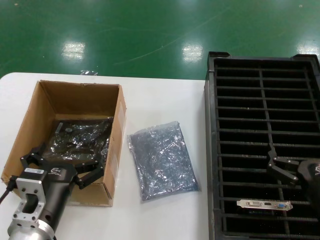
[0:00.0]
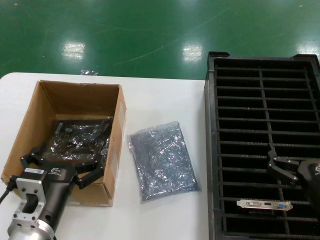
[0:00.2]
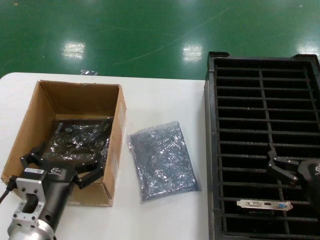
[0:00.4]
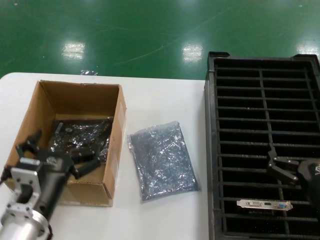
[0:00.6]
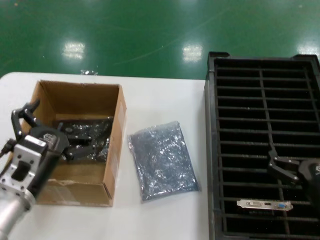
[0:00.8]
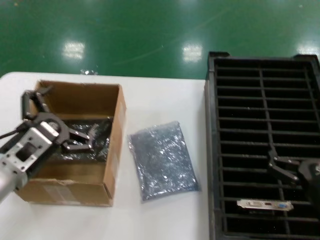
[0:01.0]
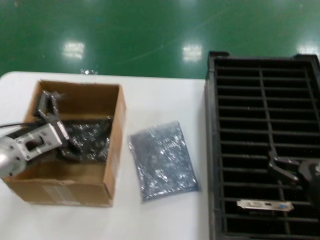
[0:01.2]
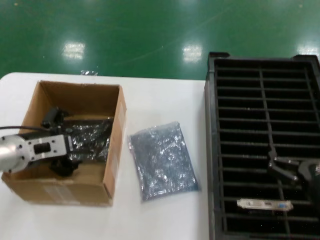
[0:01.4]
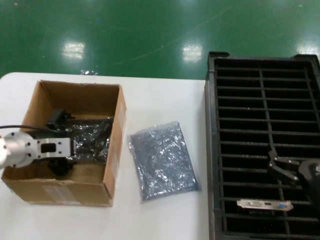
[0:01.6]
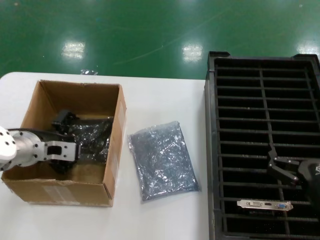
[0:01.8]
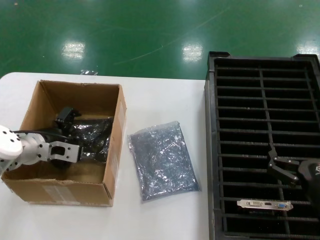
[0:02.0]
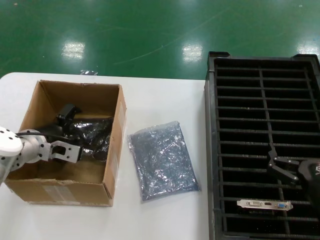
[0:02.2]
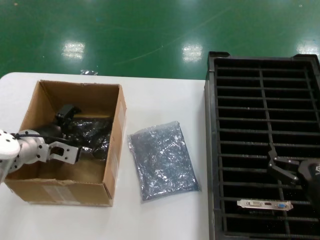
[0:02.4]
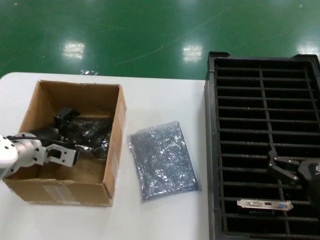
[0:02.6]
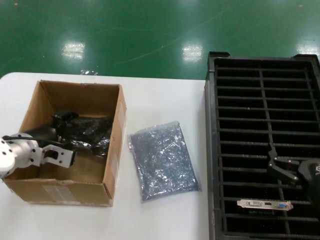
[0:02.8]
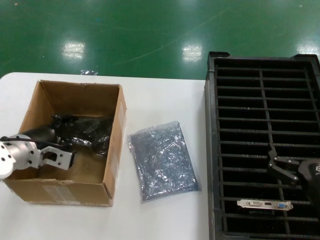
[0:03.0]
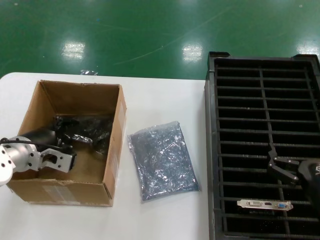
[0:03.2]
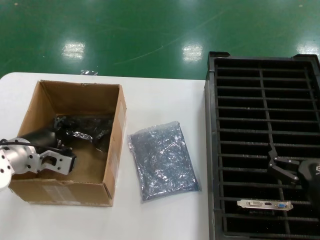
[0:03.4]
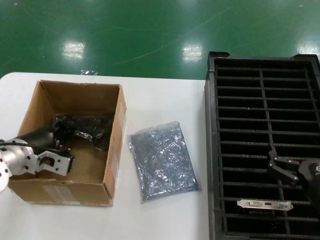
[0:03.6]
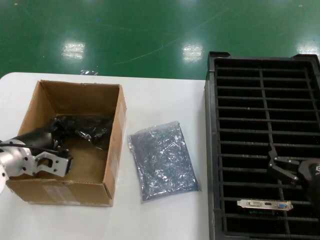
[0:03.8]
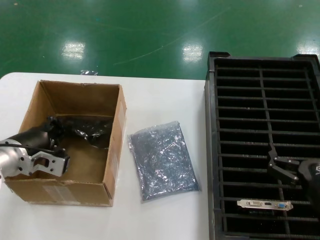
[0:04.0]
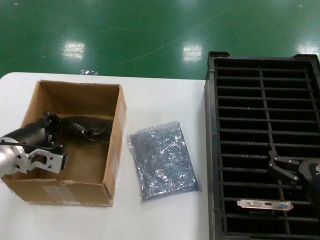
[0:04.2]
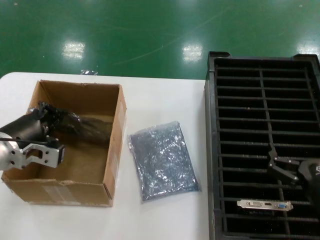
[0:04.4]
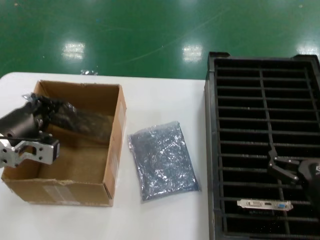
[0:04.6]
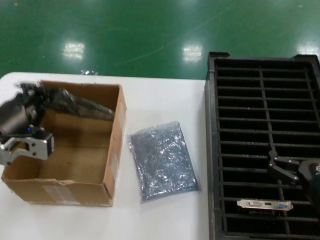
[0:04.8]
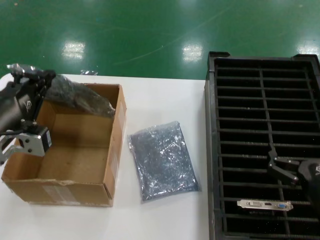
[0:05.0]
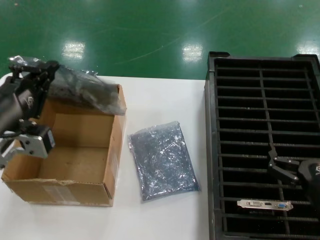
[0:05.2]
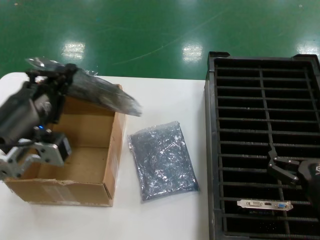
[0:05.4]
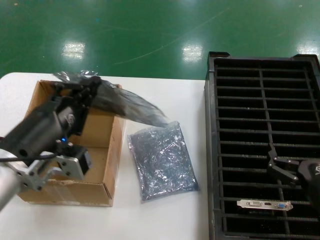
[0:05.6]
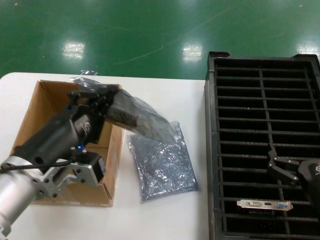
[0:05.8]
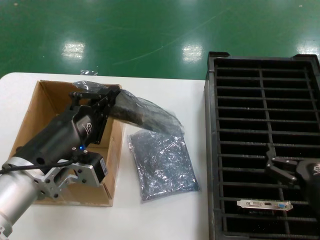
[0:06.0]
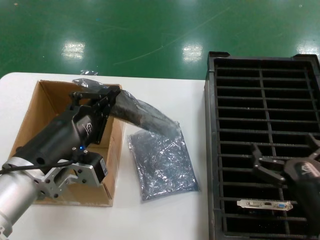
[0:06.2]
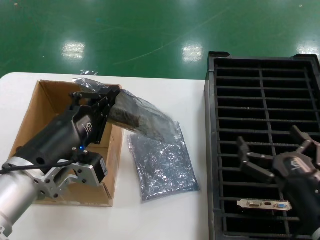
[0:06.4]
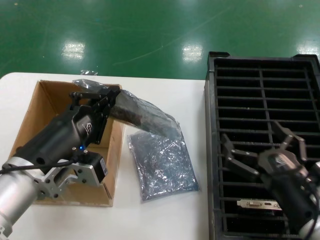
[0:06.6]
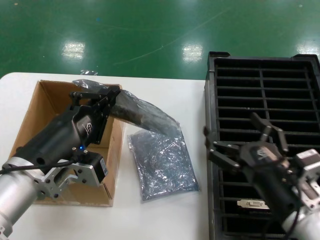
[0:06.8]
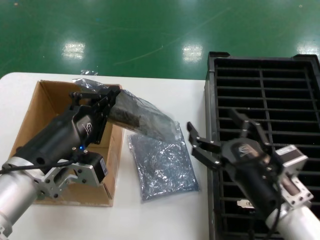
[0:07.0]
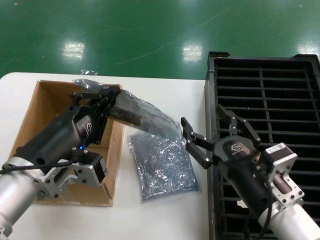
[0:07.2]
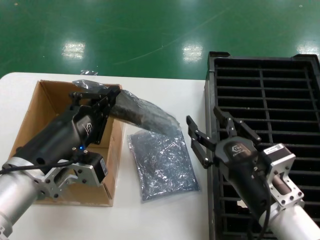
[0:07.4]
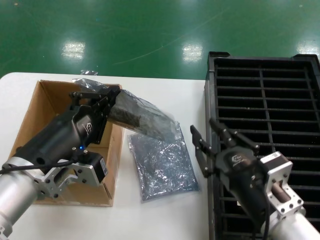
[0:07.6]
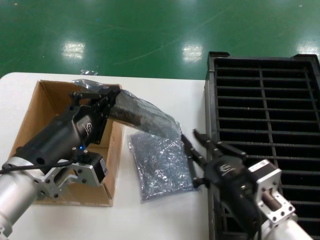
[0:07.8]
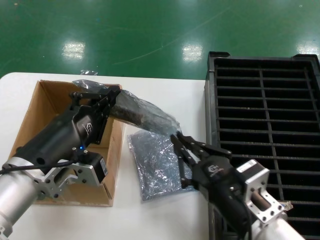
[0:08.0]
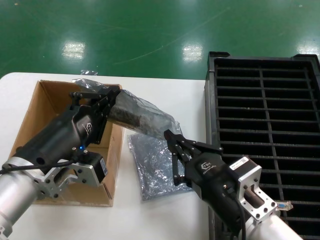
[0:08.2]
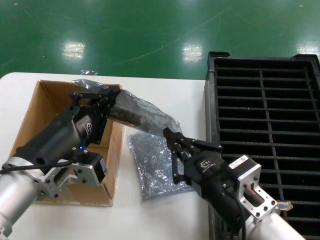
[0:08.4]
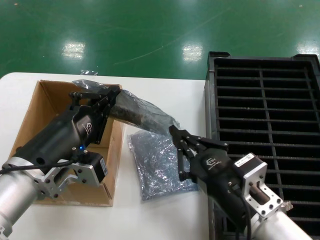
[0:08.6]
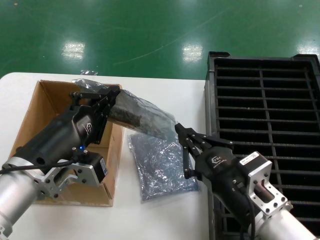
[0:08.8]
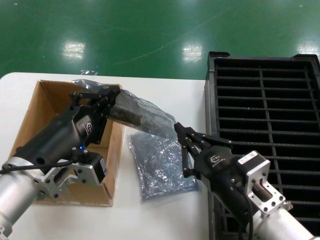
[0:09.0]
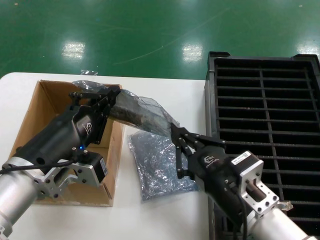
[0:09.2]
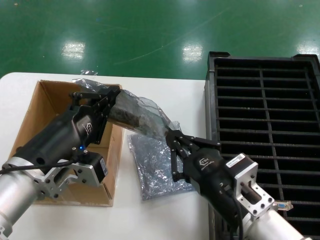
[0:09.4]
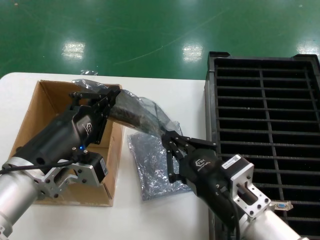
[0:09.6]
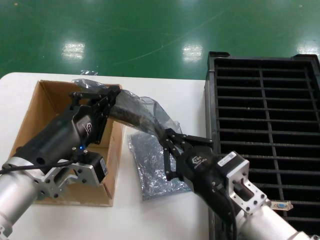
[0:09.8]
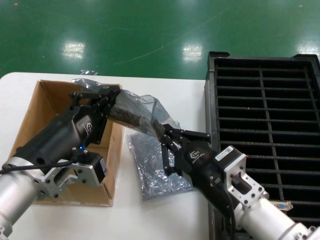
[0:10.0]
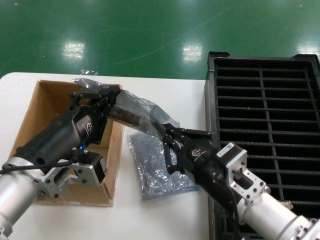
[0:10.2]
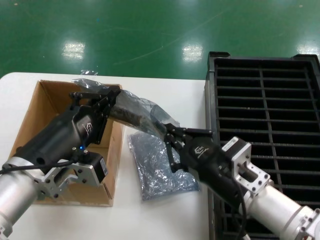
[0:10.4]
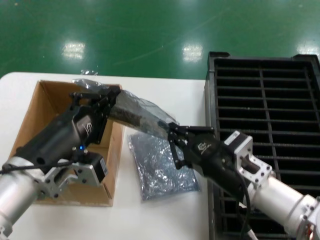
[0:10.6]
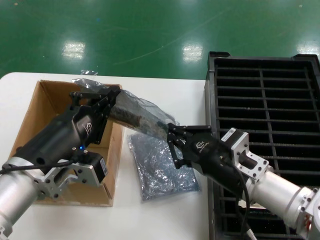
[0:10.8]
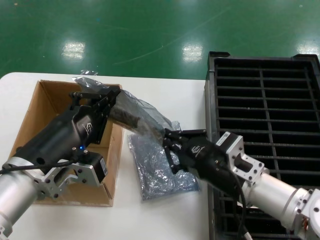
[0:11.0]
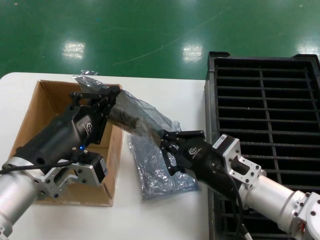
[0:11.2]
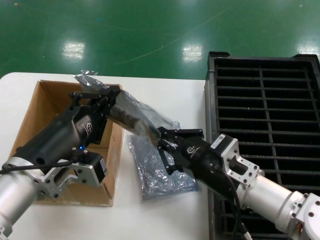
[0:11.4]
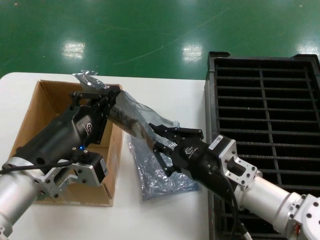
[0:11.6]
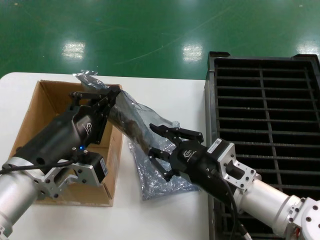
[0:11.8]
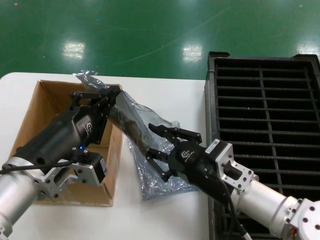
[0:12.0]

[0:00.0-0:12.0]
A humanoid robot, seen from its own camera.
Task of the whole recording: take out graphics card from box remove packaging put into black container.
Step, 0:00.0 to 0:03.8: Grasp the bag.
Step, 0:04.0 to 0:05.8: Lift the bag.
0:00.0 to 0:01.6: The left hand moves forward, to the left and upward, approximately 20 cm.
0:03.0 to 0:04.4: The left hand is displaced backward by approximately 5 cm.
0:04.4 to 0:06.0: The left hand goes about 15 cm backward and to the right.
0:06.0 to 0:07.6: The right hand is displaced to the left by about 10 cm.
0:07.6 to 0:10.4: The hands stay close to where they were, moving slightly.
0:10.4 to 0:12.0: The hands move only a little.

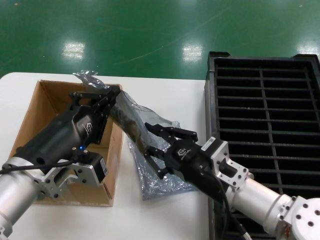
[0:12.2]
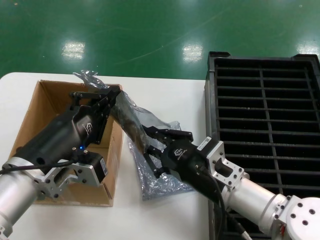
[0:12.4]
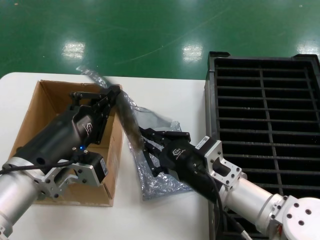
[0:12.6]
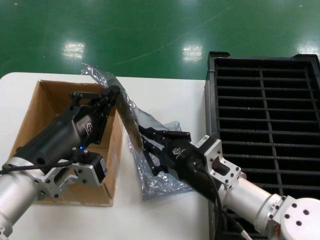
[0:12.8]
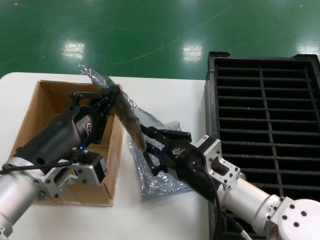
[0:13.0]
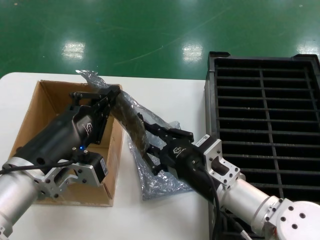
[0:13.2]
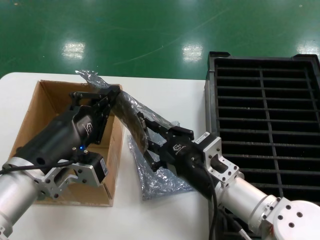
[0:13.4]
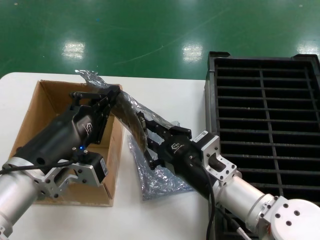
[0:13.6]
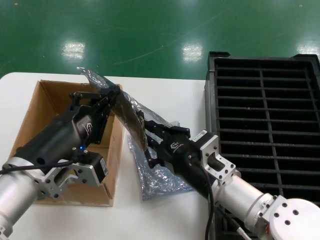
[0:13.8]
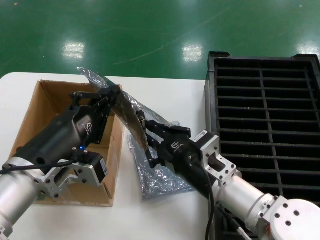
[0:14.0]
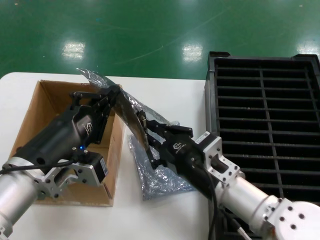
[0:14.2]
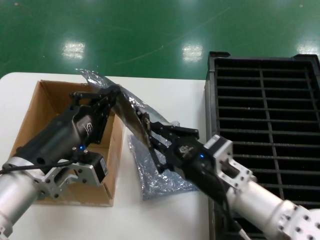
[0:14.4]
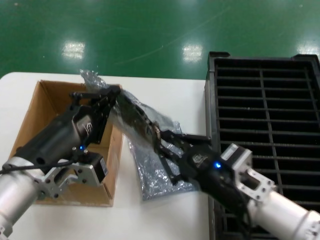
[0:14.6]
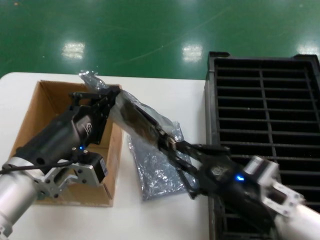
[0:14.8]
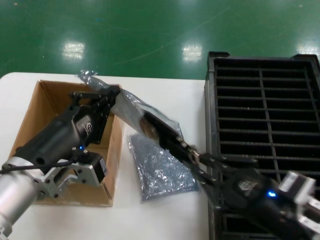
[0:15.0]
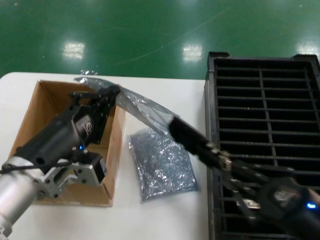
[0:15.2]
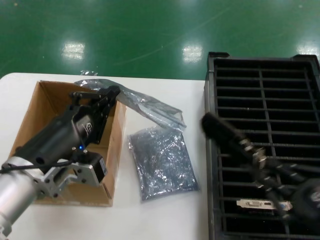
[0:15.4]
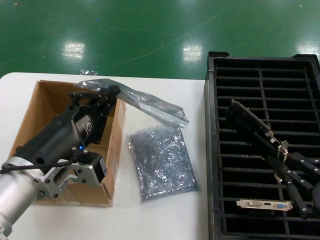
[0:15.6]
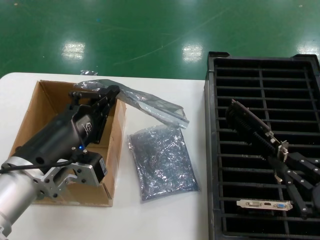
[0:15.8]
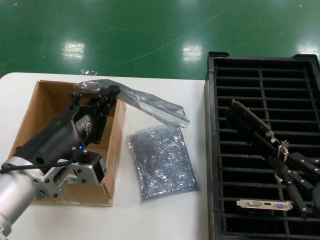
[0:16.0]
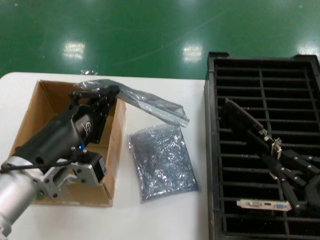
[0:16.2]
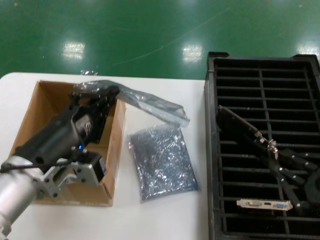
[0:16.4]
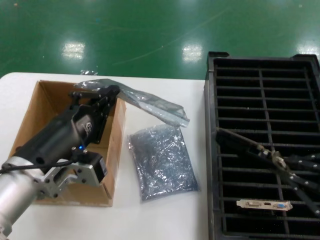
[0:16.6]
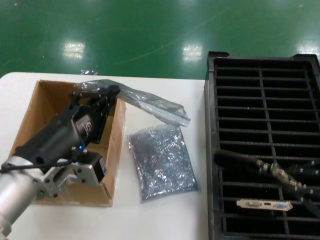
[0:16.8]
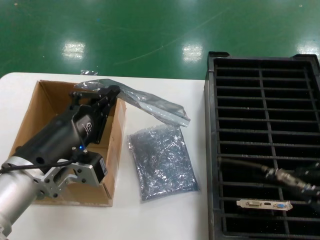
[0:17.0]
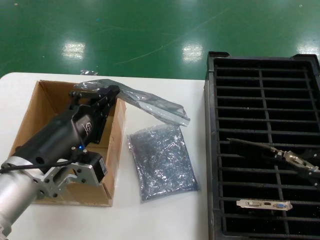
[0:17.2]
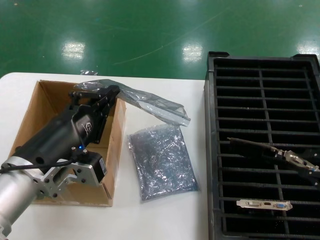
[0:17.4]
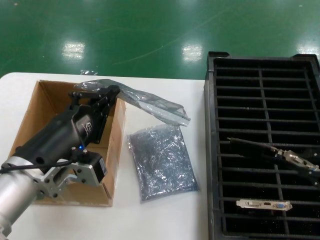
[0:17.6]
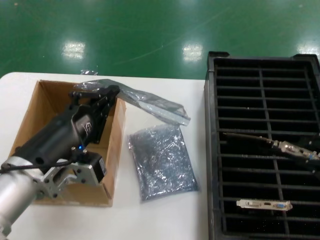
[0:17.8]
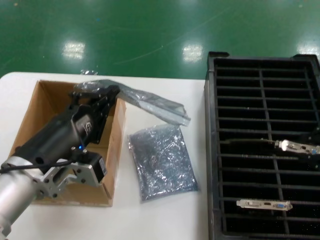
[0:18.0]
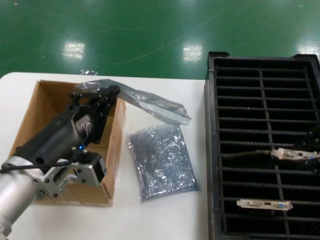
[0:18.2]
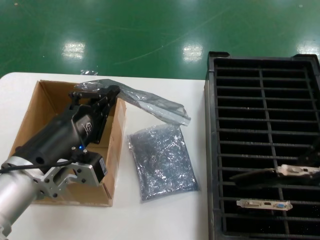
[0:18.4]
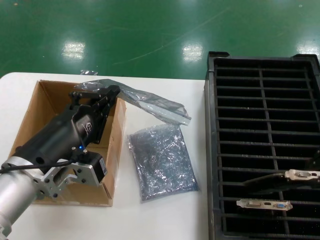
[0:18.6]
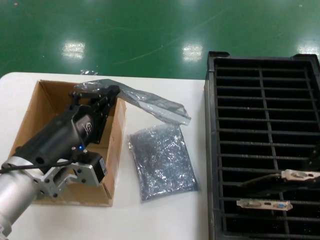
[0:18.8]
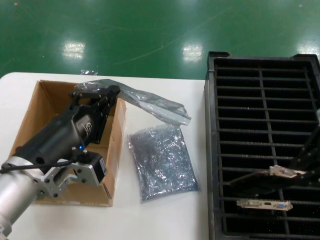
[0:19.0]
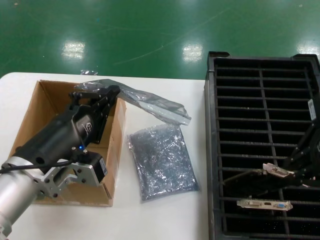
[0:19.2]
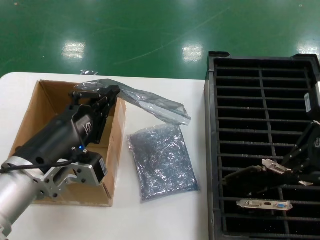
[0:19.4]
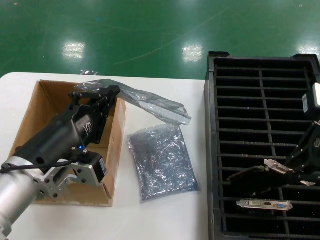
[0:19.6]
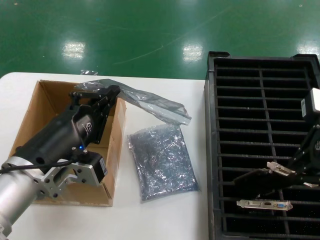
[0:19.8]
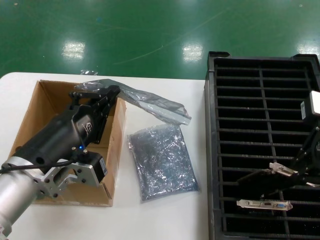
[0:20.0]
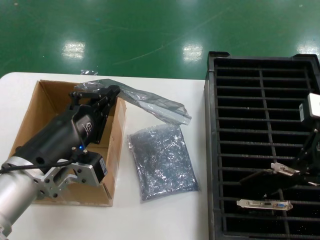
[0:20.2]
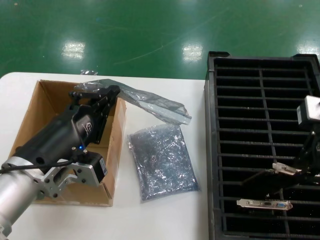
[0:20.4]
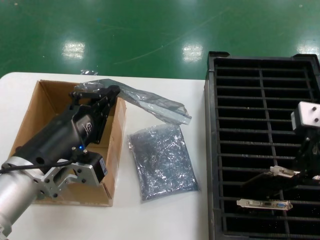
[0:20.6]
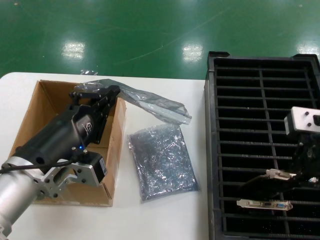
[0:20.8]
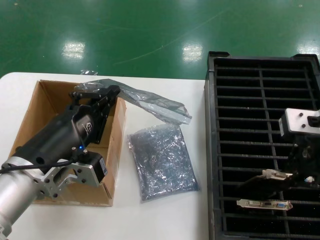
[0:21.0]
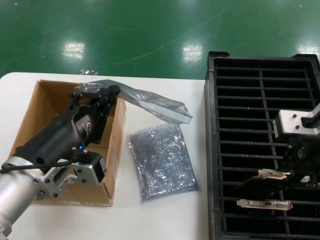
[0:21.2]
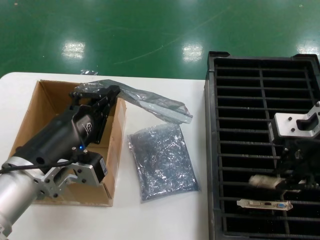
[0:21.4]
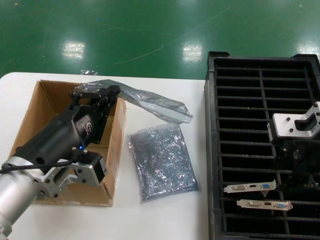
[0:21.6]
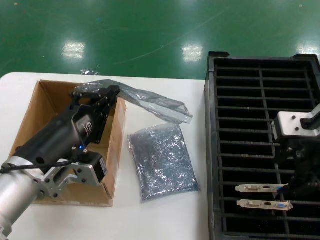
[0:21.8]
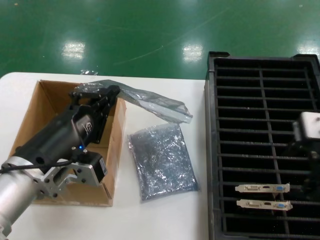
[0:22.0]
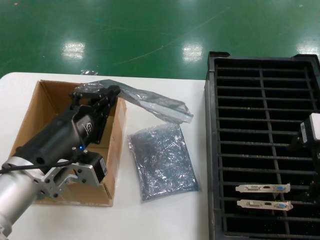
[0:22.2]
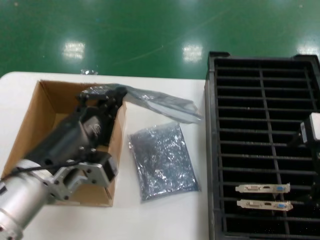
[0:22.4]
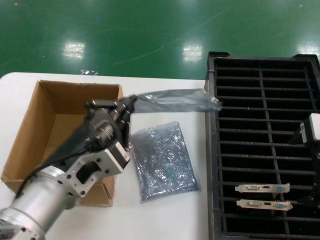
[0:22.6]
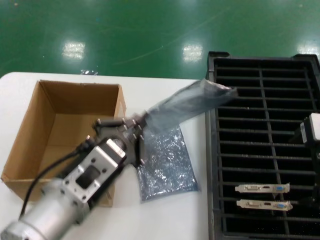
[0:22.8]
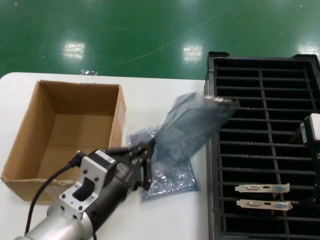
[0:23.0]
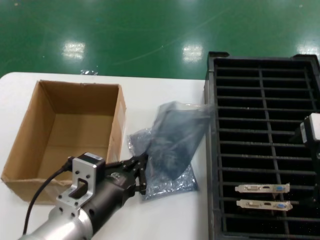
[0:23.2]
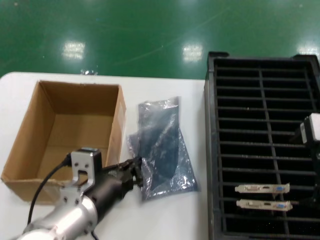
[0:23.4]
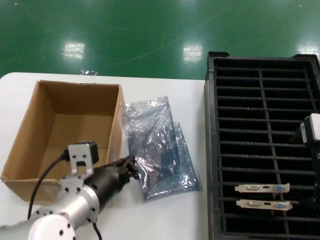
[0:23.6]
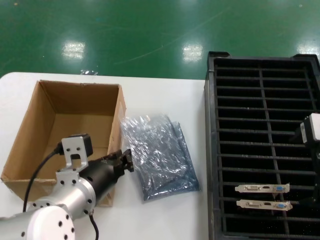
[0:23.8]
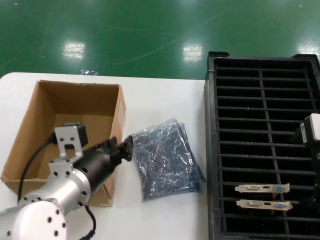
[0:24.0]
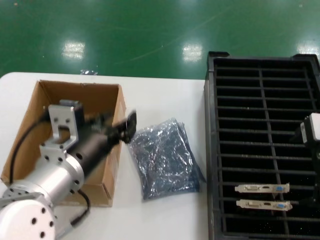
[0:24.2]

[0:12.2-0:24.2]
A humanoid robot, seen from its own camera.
Task of the whole recording: take out graphics card from box remove packaging put into black container.
Step, 0:12.2 to 0:15.2: Take out the hard disk of the bag.
Step, 0:15.4 to 0:21.6: Place the hard disk in the hard disk enclosure.
Step, 0:22.0 to 0:23.8: Place the down the bag.
0:12.2 to 0:13.8: The hands make only small movements.
0:13.8 to 0:15.2: The right hand moves to the right and backward, about 20 cm.
0:15.2 to 0:16.6: The right hand heads upward and to the right, covering roughly 10 cm.
0:16.6 to 0:18.2: The right hand goes some 15 cm upward and forward.
0:18.2 to 0:19.8: The right hand moves forward, approximately 10 cm.
0:19.8 to 0:21.2: The right hand moves roughly 5 cm.
0:21.2 to 0:22.6: The right hand moves roughly 5 cm.
